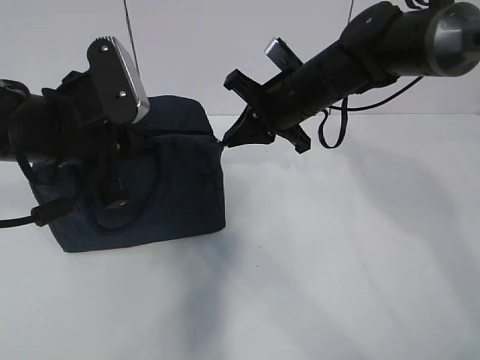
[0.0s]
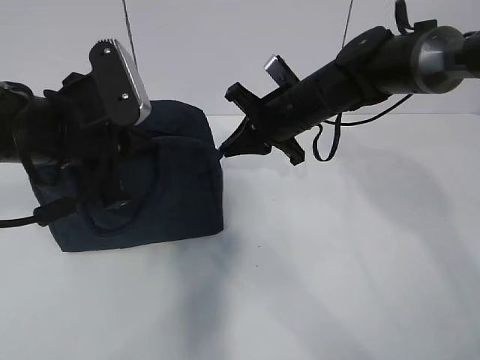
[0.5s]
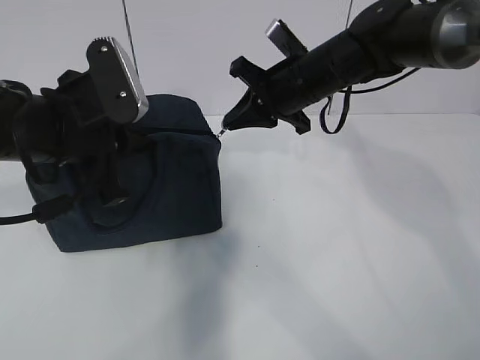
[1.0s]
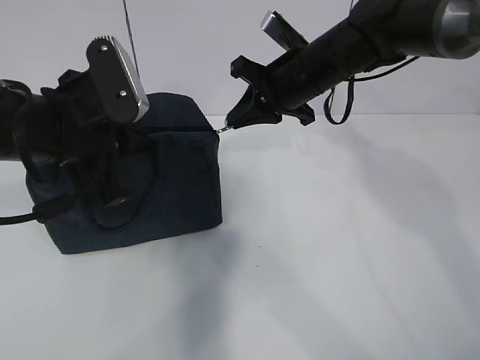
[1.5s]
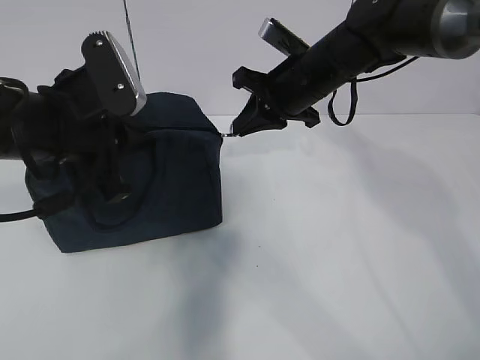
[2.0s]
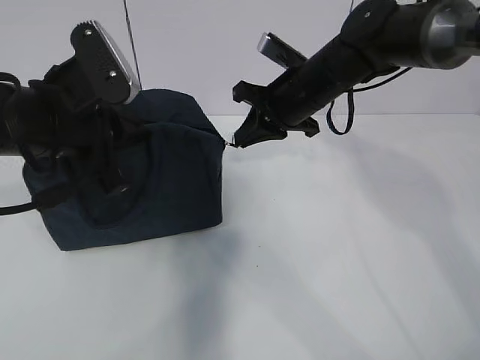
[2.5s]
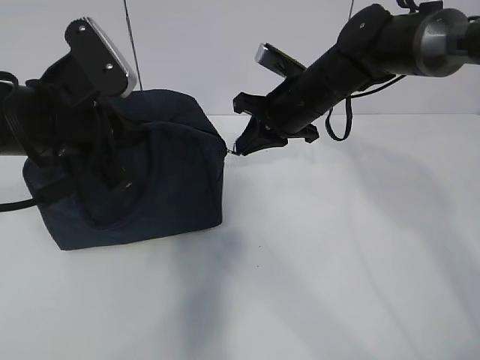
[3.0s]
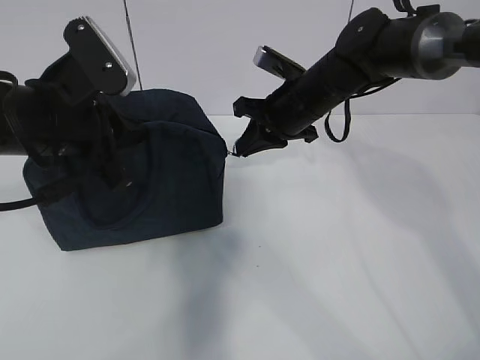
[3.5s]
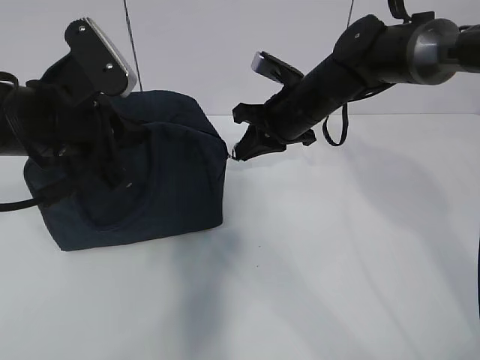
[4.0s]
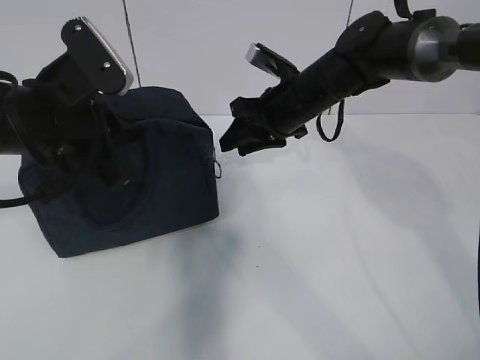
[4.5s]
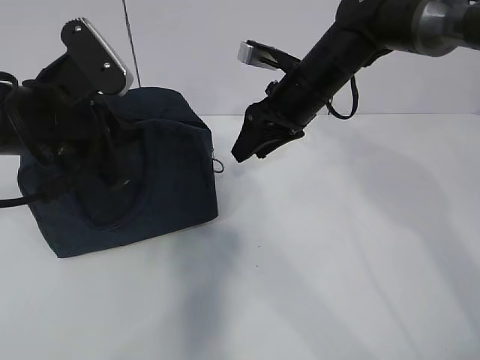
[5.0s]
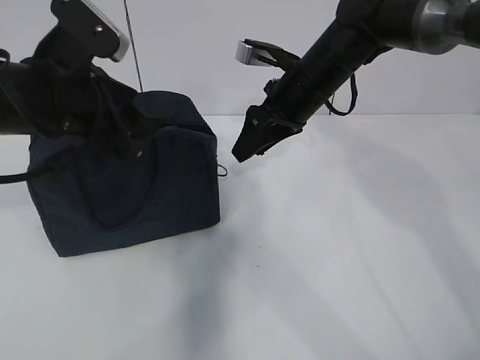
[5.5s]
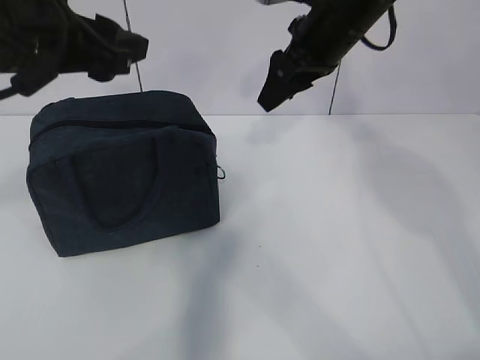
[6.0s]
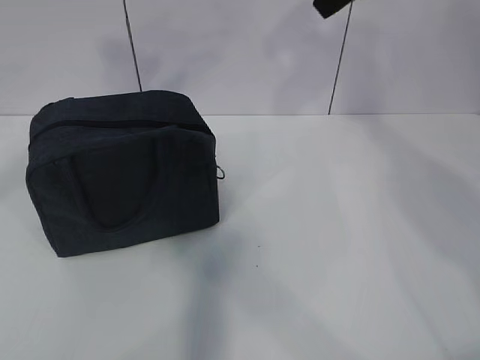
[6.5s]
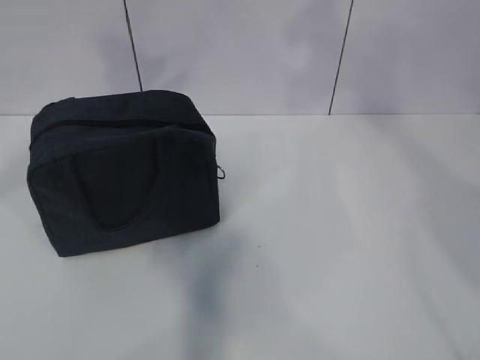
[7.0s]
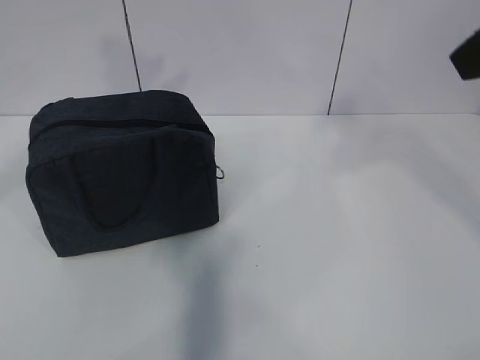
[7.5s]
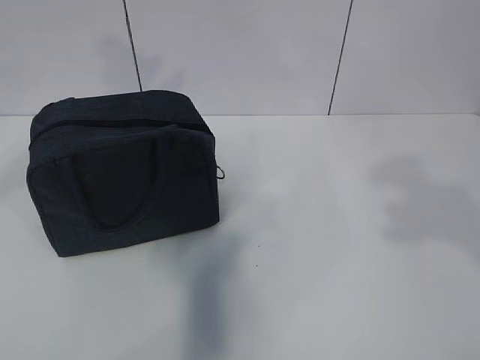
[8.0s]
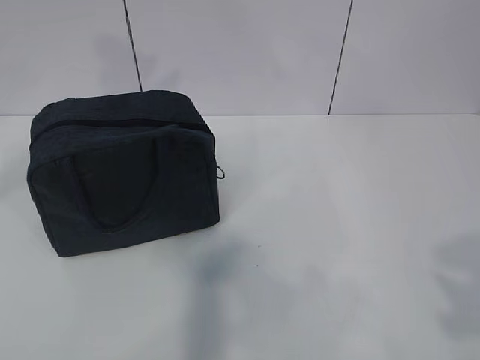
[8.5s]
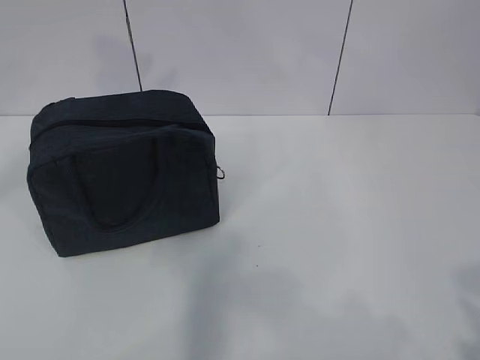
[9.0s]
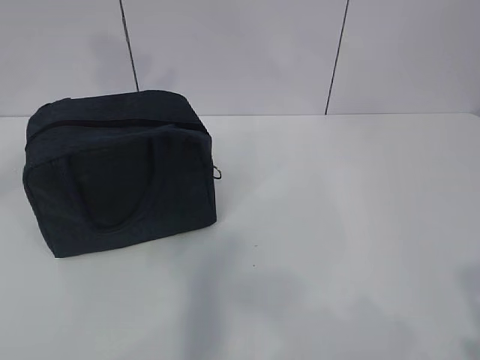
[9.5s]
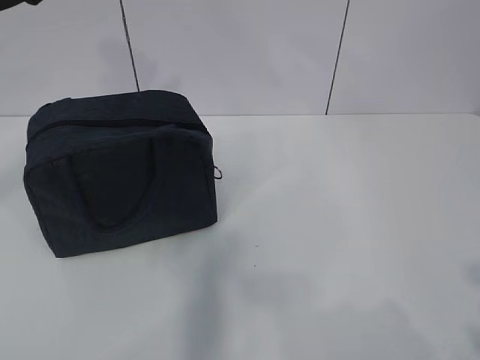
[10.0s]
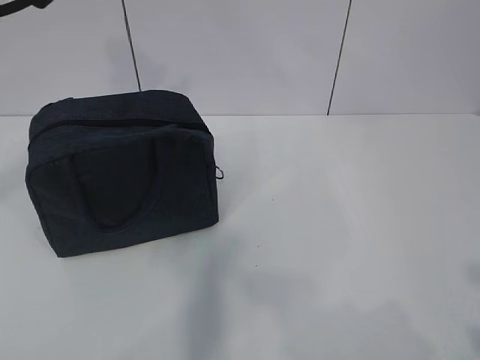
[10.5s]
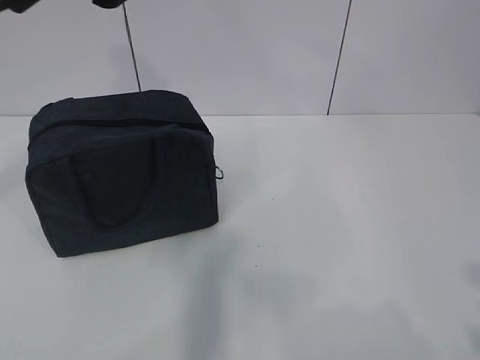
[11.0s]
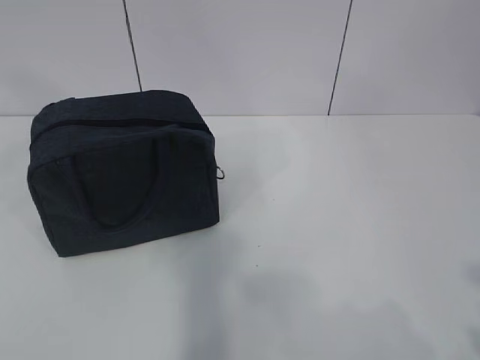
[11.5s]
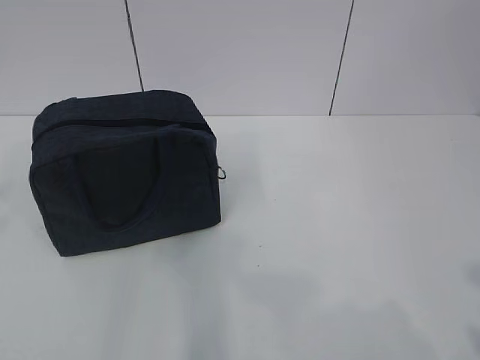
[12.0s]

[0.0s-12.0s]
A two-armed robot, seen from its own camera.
0.0s to 2.0s: The grippers stay close to where they were, moving slightly.
2.0s to 4.0s: The grippers make only small movements.
4.0s to 6.0s: The left gripper moves upward, about 5 cm, and opens its fingers; the right gripper heads upward, covering some 10 cm, and opens.
6.0s to 8.0s: The left gripper moves upward, some 5 cm. The right gripper travels backward by approximately 35 cm.
8.0s to 10.0s: The right gripper moves backward and downward, about 15 cm.
10.0s to 12.0s: The left gripper shifts about 30 cm backward and to the left.

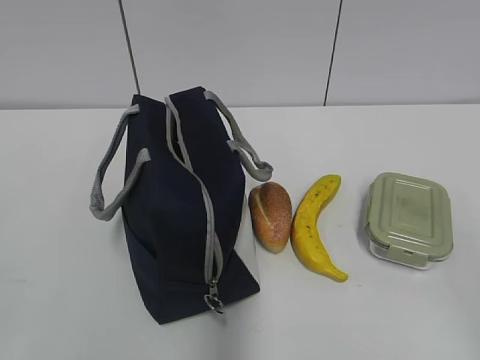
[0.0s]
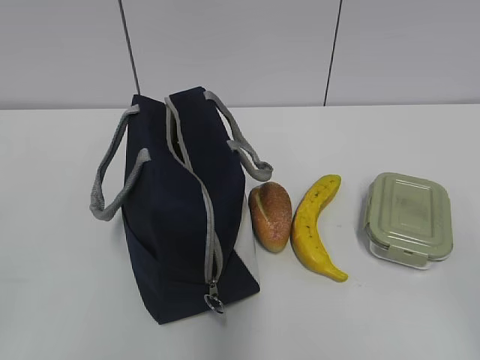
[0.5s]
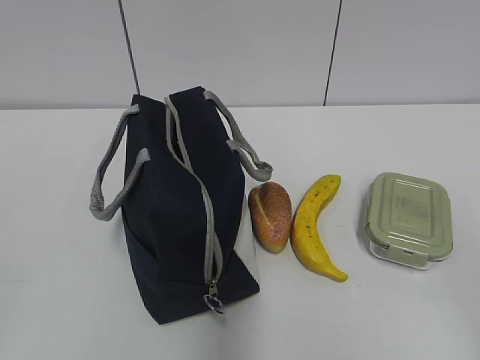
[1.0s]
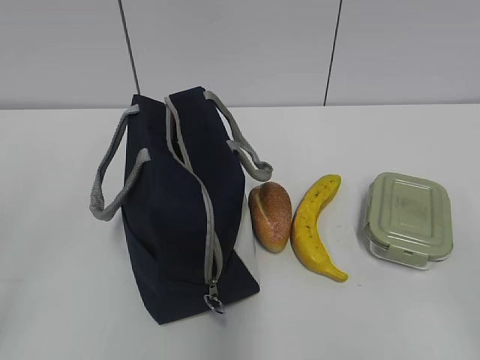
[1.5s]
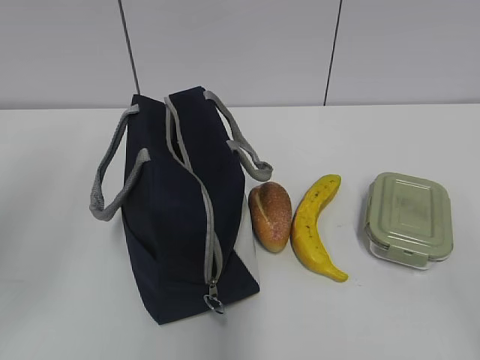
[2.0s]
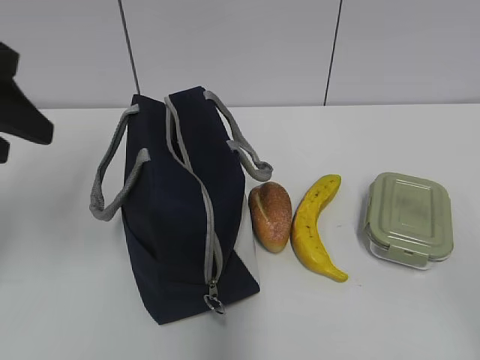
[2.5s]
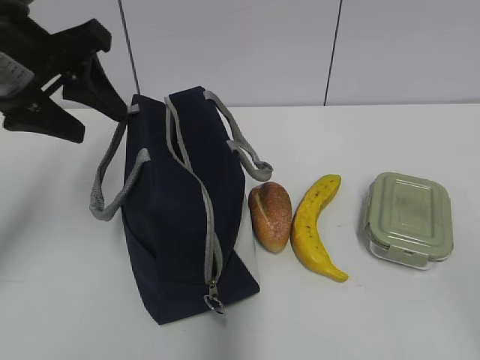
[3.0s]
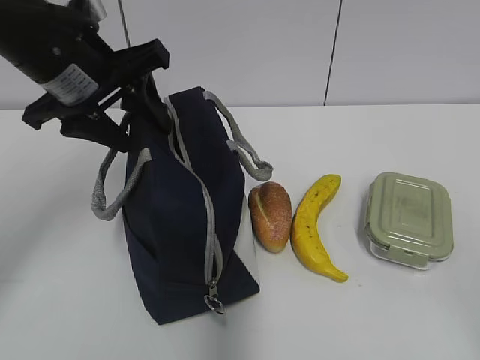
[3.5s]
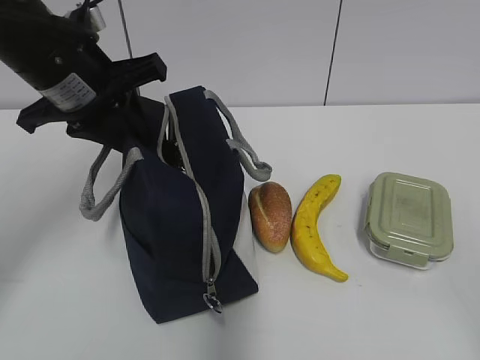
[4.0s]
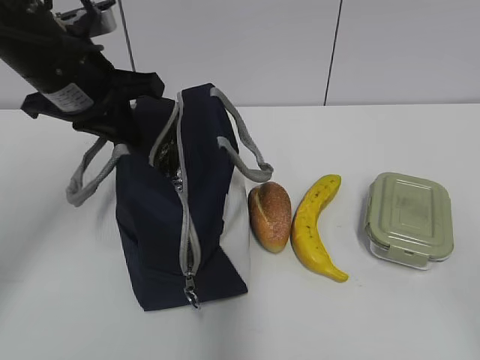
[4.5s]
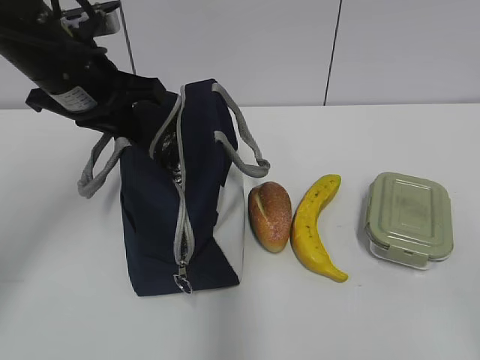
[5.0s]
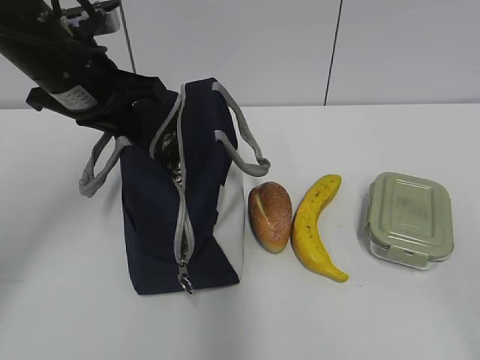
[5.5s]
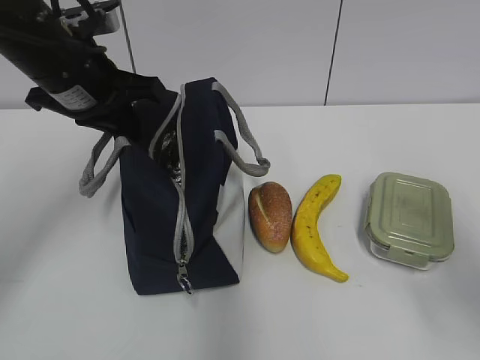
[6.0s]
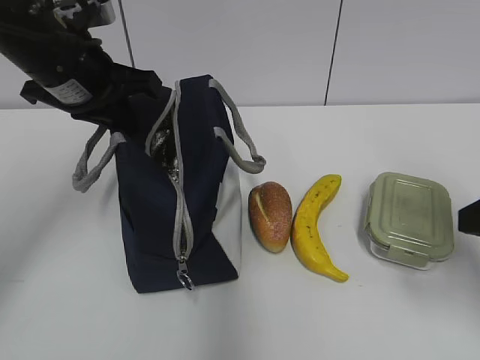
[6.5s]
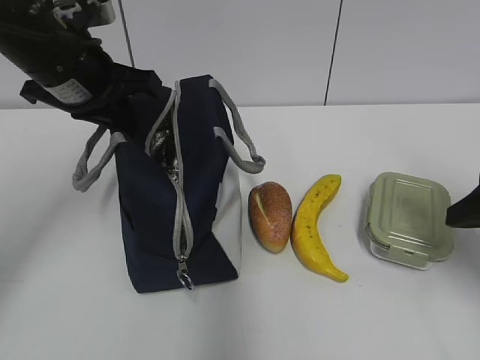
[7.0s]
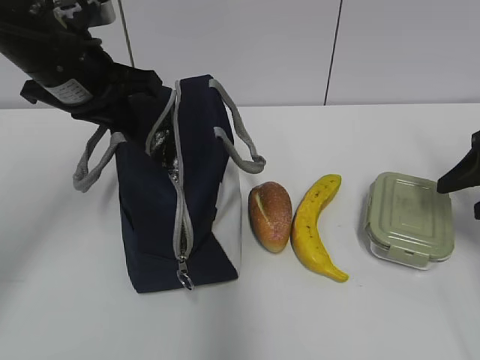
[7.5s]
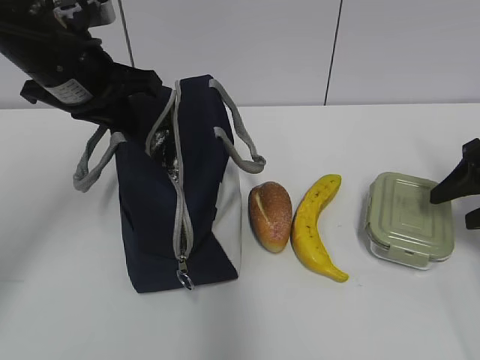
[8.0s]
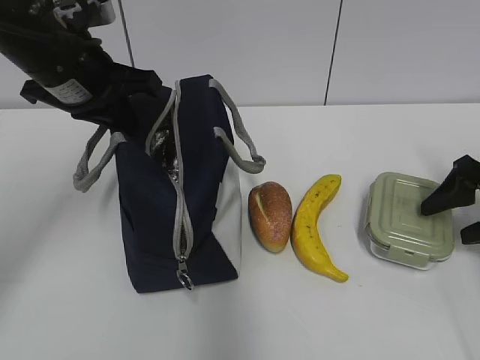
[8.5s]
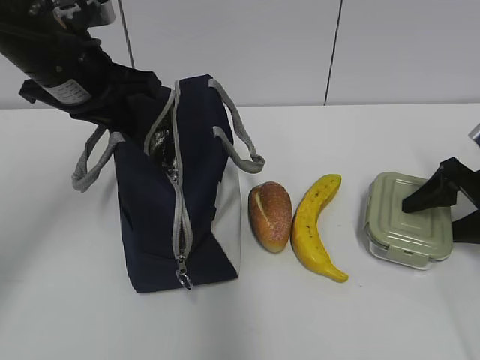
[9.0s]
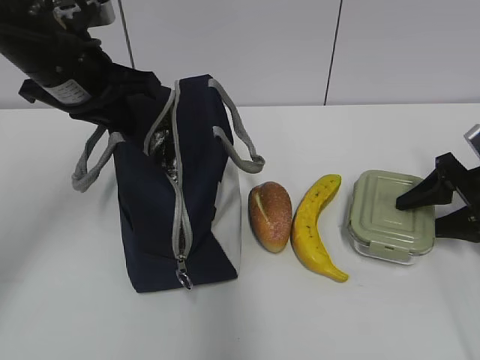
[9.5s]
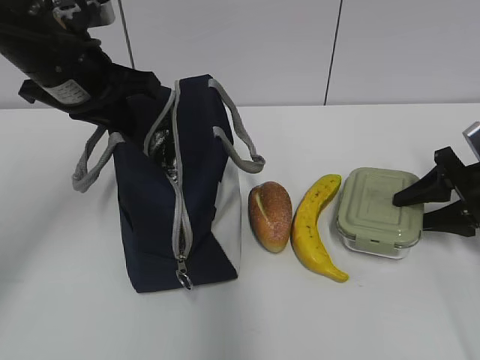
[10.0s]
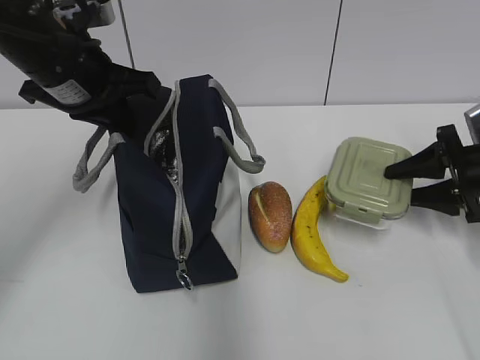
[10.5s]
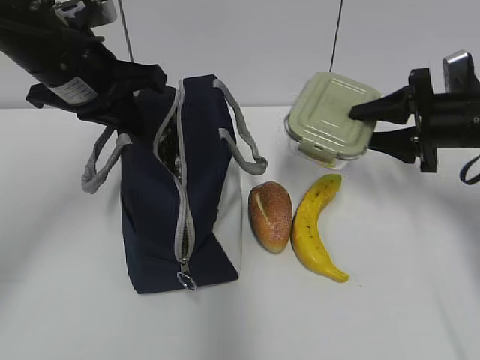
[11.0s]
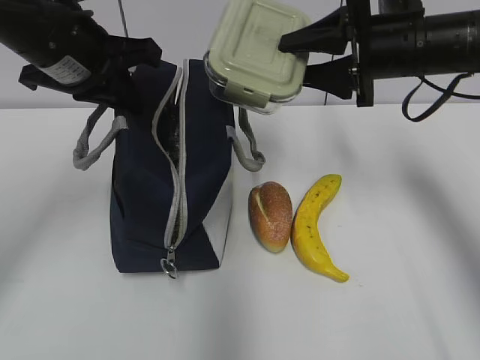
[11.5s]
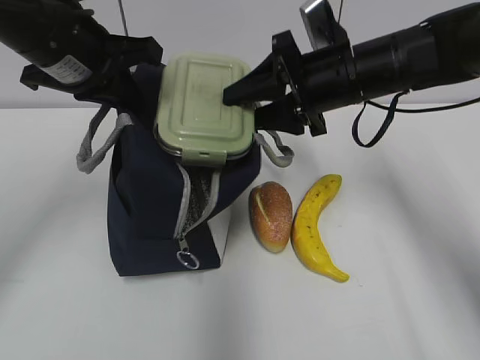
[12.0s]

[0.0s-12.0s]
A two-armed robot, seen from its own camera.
2.0s to 4.0s: The left gripper travels forward and to the right by some 20 cm, and closes up.
4.0s to 6.0s: The right gripper travels forward by some 10 cm.
6.0s to 8.0s: The right gripper is displaced forward, downward and to the right by some 25 cm.
8.0s to 10.0s: The right gripper is displaced downward by about 5 cm.
10.0s to 12.0s: The right gripper moves to the left and upward, approximately 25 cm.

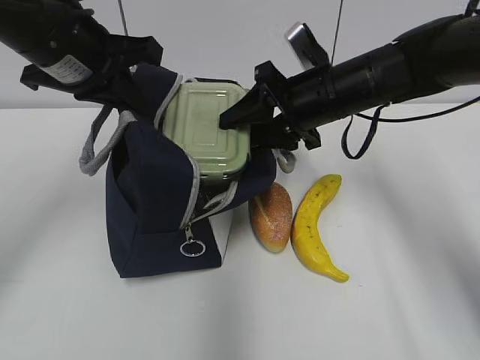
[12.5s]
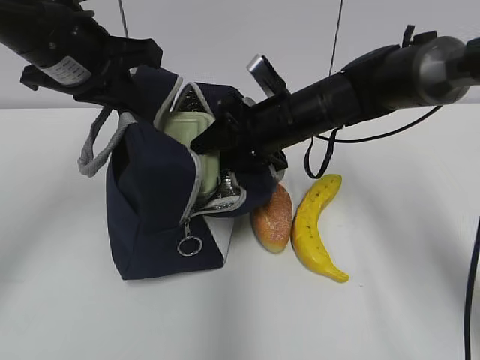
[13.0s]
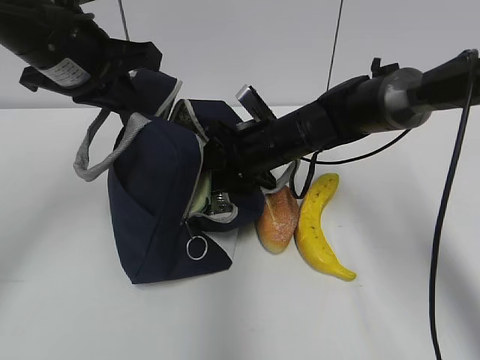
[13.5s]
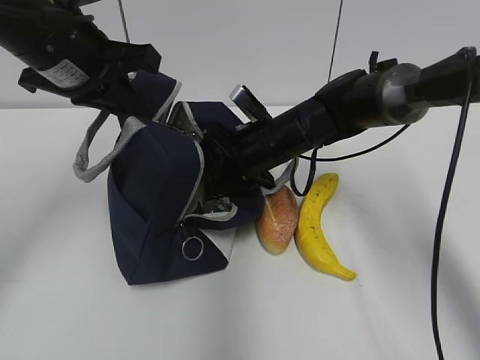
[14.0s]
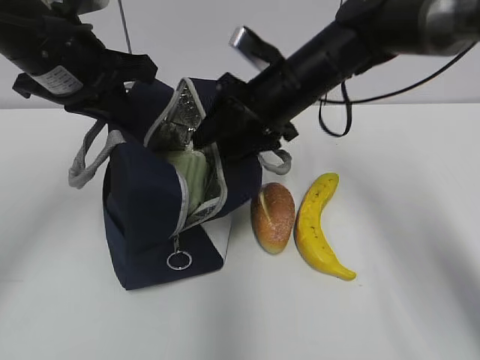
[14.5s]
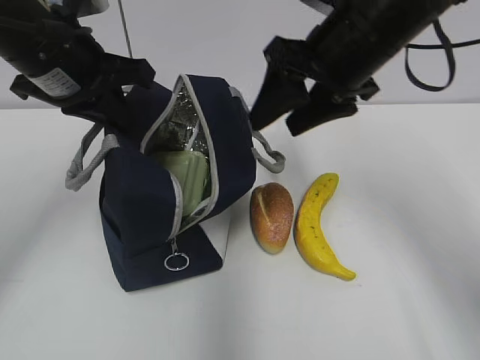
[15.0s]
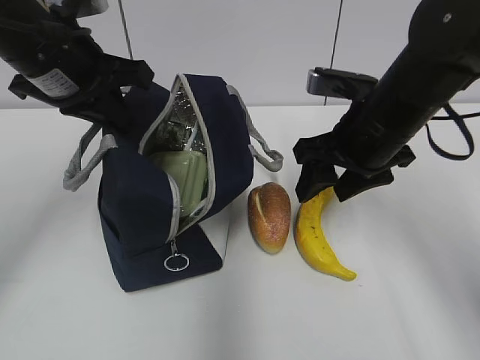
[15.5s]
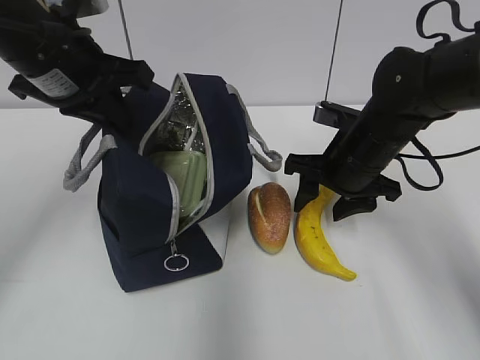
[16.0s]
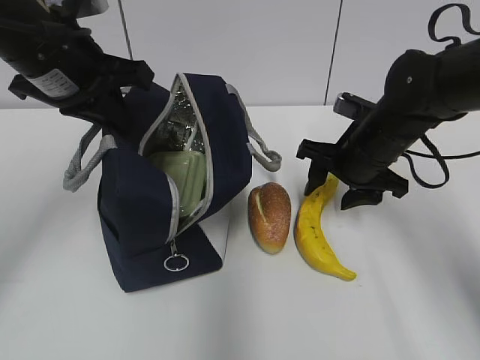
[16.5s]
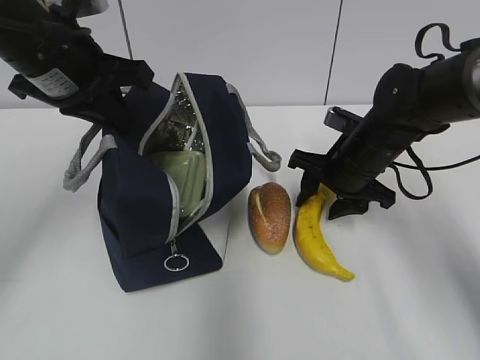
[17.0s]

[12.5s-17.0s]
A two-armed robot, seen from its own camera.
12.5s to 14.5s: The right gripper travels downward and back again, about 10 cm each way.
14.5s to 17.0s: The right gripper shifts about 15 cm downward and to the right.
